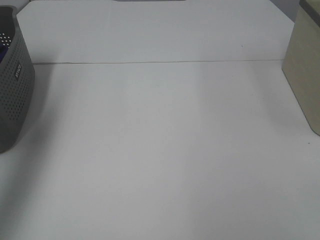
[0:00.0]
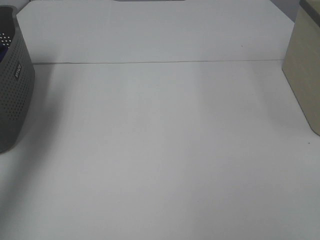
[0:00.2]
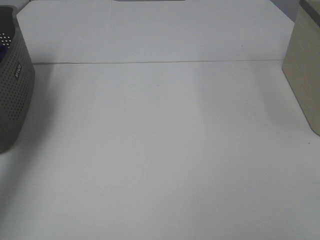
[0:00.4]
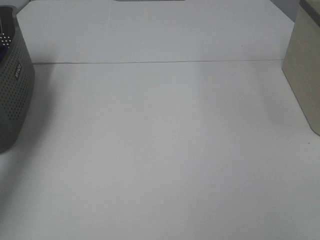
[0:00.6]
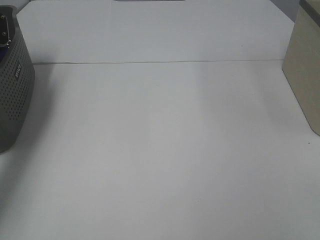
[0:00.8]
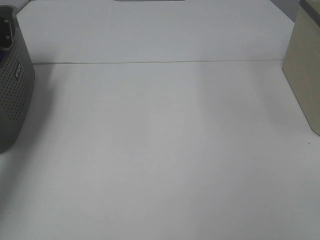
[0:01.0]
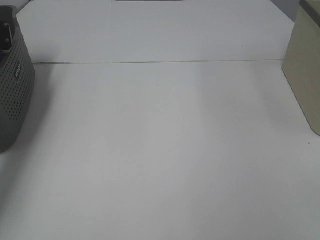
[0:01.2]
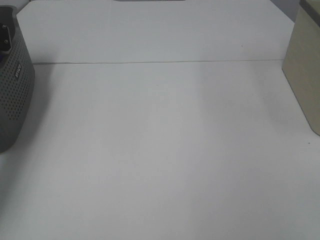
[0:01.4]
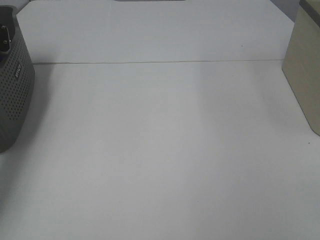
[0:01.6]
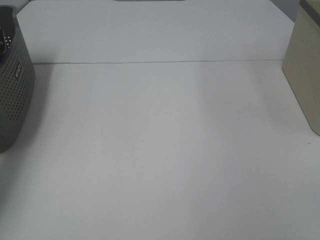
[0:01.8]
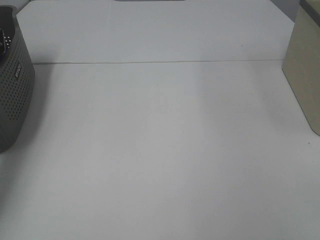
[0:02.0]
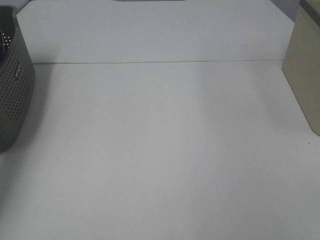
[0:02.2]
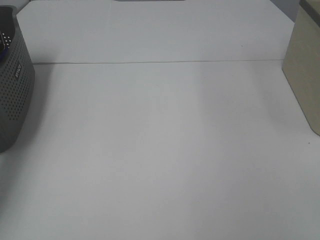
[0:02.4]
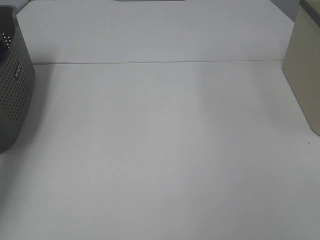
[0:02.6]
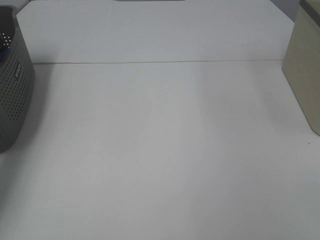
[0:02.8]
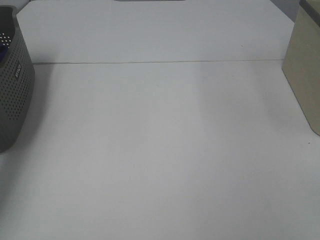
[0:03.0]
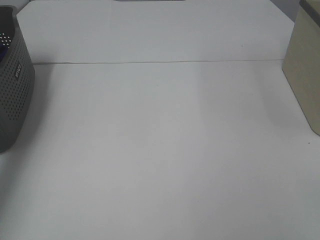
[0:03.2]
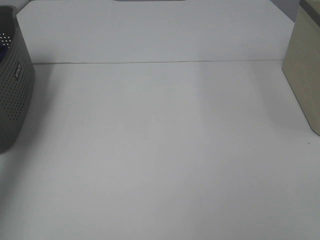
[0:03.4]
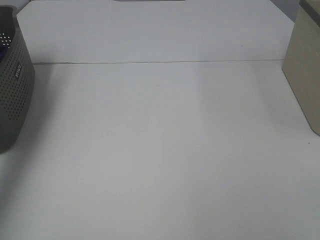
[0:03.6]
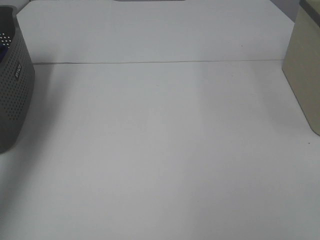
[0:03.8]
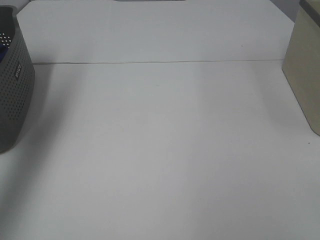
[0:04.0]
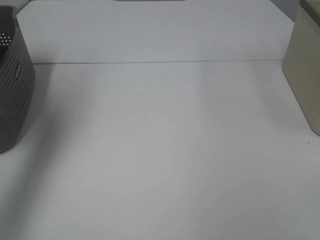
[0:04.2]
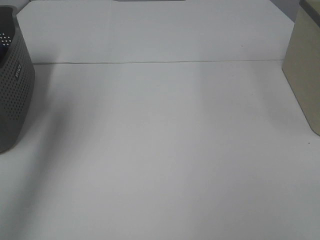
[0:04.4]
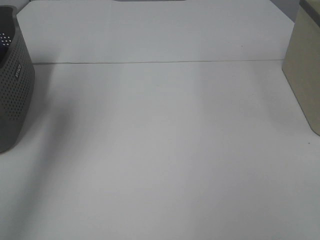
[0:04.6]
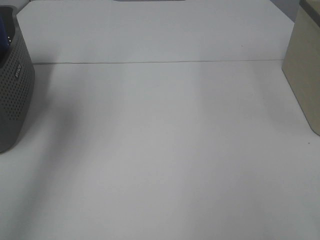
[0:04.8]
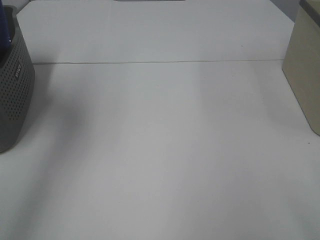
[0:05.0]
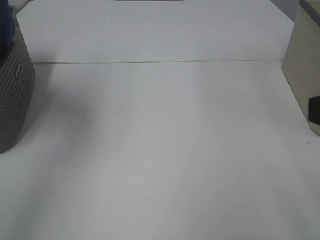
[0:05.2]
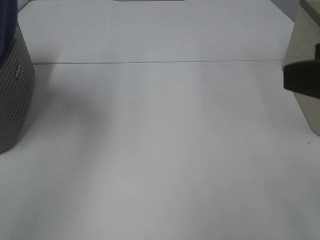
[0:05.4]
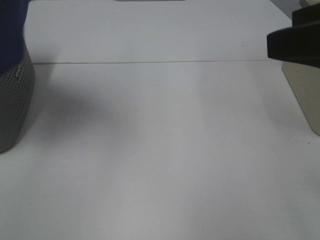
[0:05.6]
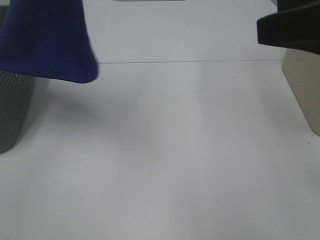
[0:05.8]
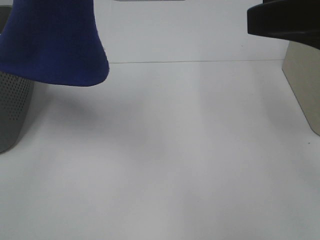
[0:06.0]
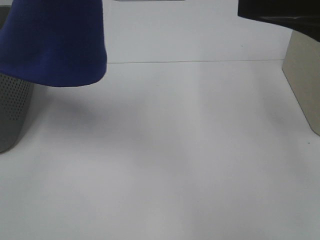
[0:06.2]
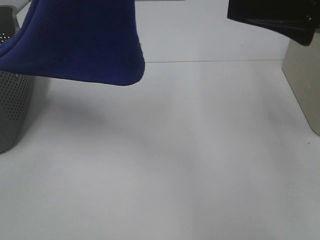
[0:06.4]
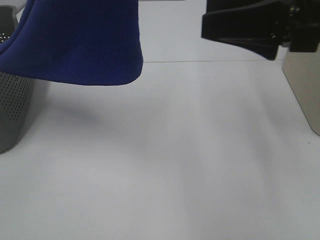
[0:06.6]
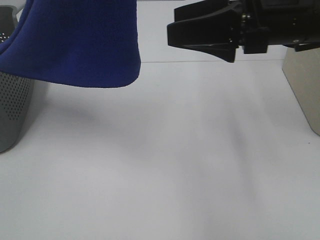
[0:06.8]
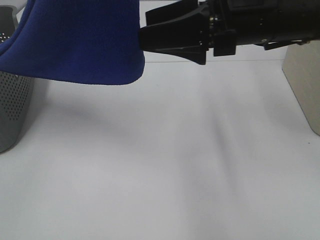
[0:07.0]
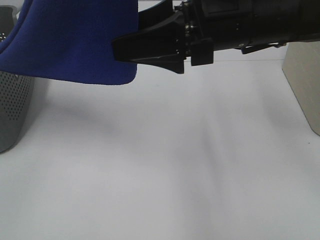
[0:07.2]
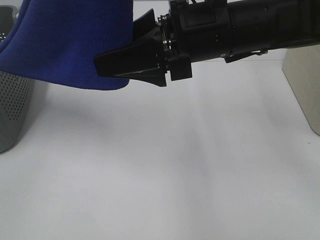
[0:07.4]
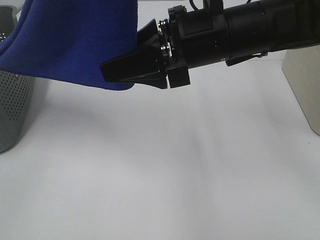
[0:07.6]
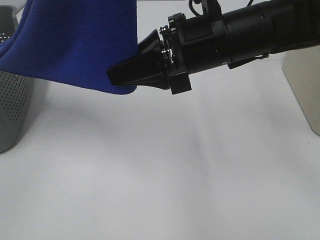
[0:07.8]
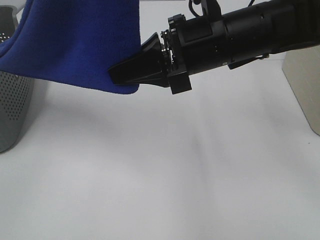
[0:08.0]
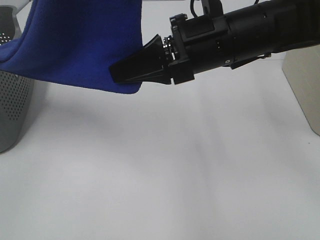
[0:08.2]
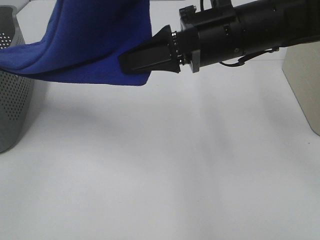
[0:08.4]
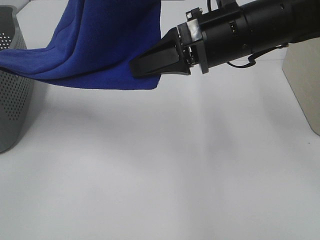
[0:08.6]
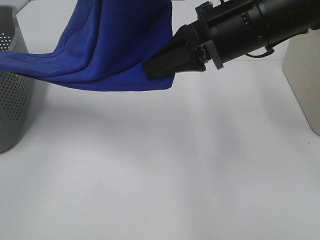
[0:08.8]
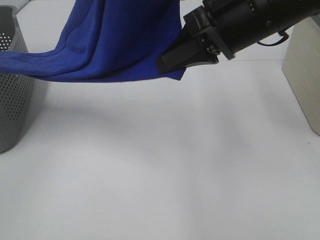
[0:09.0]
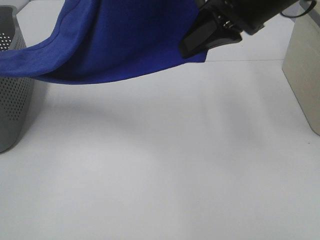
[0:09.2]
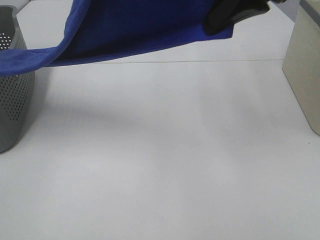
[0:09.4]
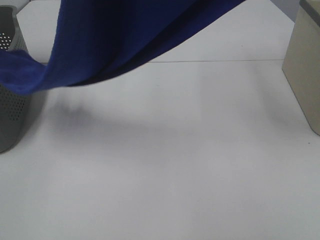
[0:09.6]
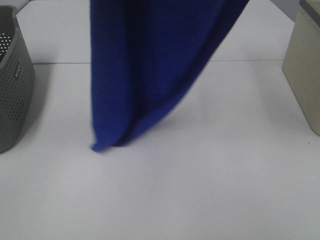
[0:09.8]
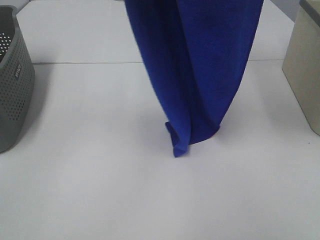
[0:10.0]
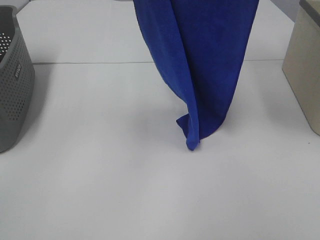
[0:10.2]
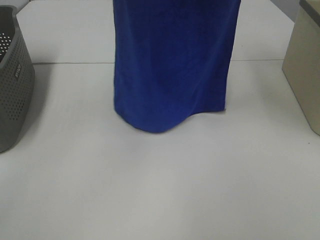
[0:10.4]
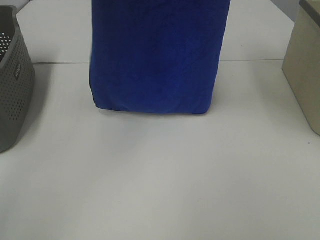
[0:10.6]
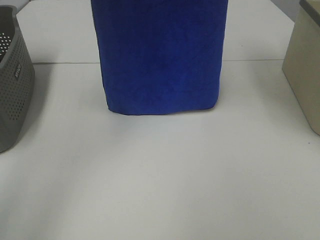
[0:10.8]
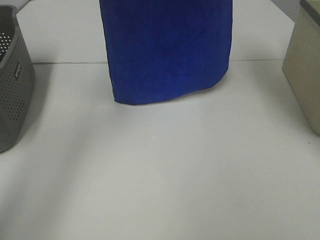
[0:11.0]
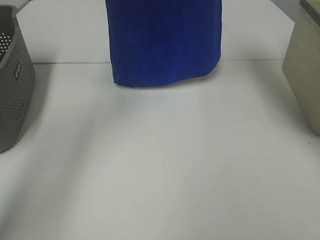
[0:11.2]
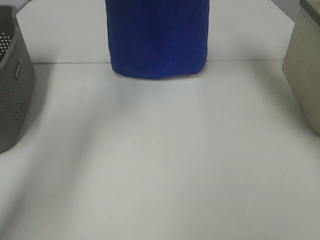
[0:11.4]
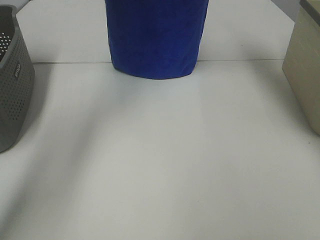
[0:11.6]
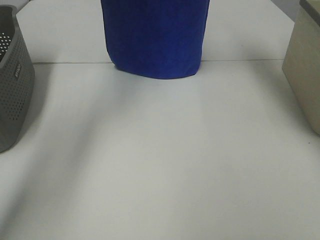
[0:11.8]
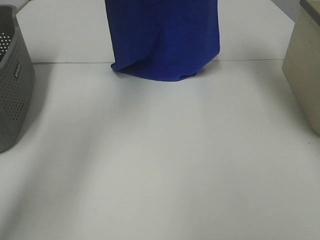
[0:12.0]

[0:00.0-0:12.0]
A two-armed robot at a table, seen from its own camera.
Task of the whole recording: Remove the towel and place it.
Step, 5.0 to 7.8 s: Right hand: grab a corner of the blue towel and straighten it.
0.0 to 1.6 s: The left gripper goes roughly 25 cm downward and forward, and closes up.
3.0 to 4.4 s: The left gripper shifts approximately 30 cm upward, backward and to the right.
4.4 to 6.0 s: The left gripper moves to the right, backward and upward, about 15 cm, while the right gripper shifts about 20 cm forward.
6.0 to 7.6 s: The right gripper heads to the left, downward and forward, covering approximately 20 cm.
7.6 to 9.0 s: The right gripper changes place by roughly 5 cm, and closes its fingers.
9.0 to 10.4 s: The left gripper moves forward, about 10 cm. The right gripper travels upward by some 20 cm.
10.4 to 12.0 s: The right gripper is displaced forward and downward by some 15 cm; the left gripper heads forward, covering about 15 cm.

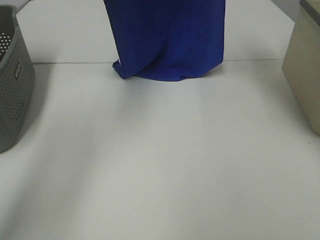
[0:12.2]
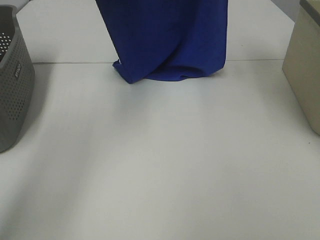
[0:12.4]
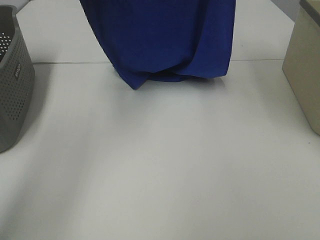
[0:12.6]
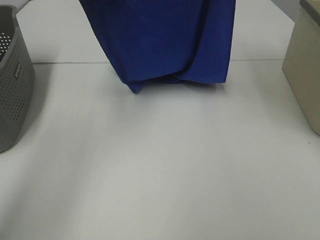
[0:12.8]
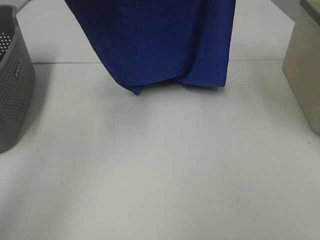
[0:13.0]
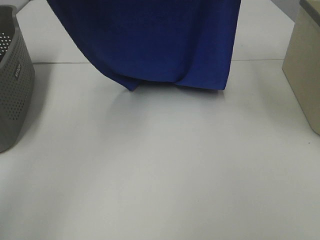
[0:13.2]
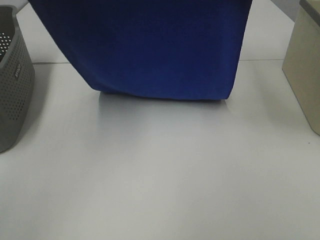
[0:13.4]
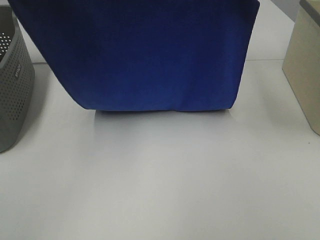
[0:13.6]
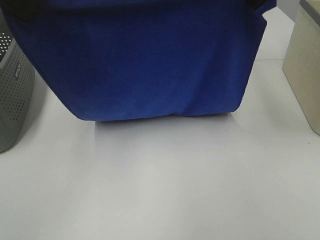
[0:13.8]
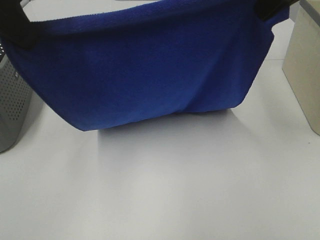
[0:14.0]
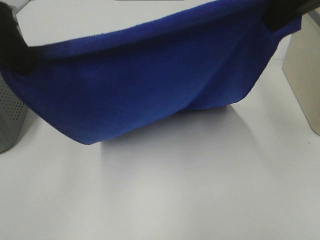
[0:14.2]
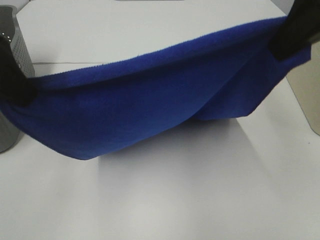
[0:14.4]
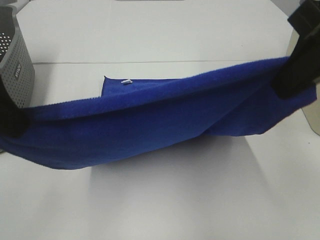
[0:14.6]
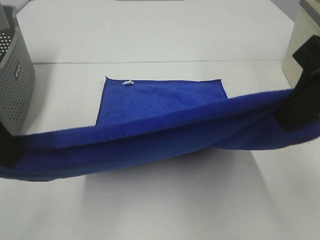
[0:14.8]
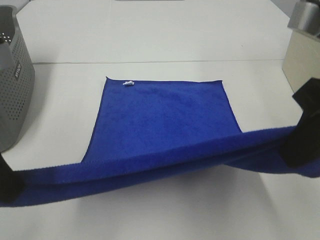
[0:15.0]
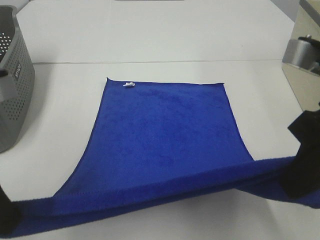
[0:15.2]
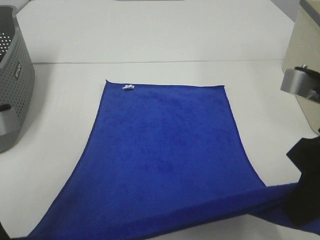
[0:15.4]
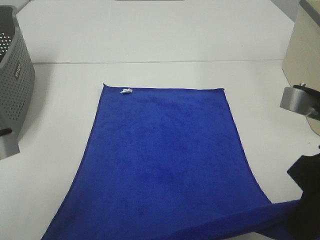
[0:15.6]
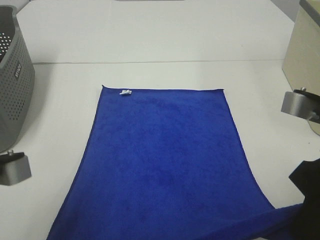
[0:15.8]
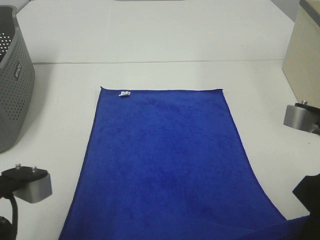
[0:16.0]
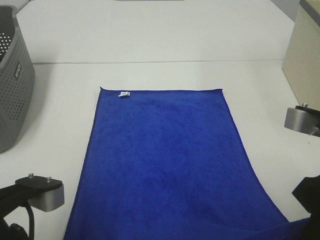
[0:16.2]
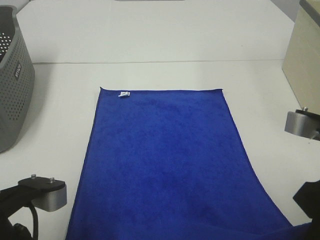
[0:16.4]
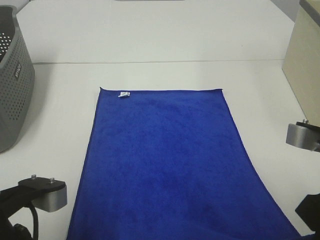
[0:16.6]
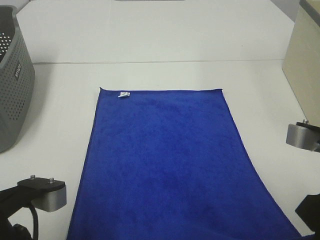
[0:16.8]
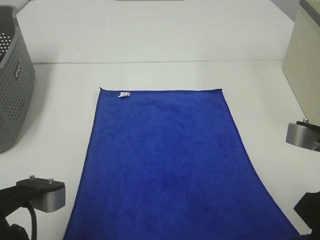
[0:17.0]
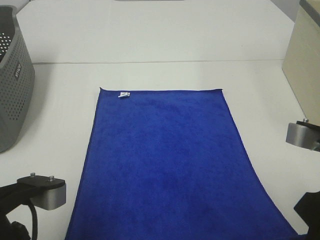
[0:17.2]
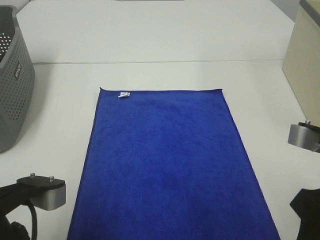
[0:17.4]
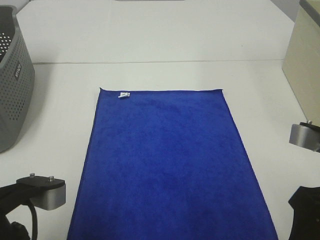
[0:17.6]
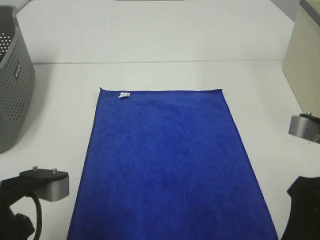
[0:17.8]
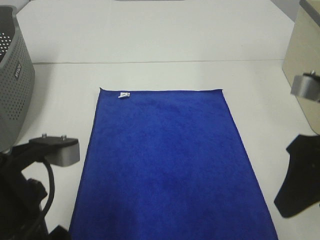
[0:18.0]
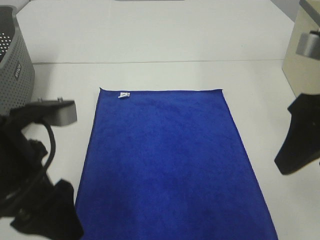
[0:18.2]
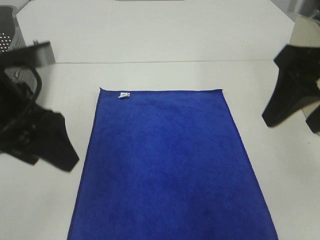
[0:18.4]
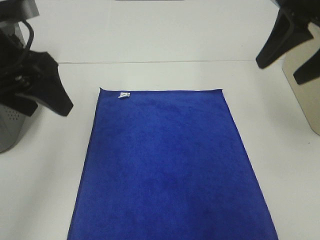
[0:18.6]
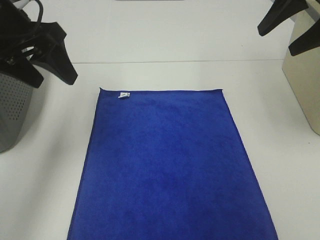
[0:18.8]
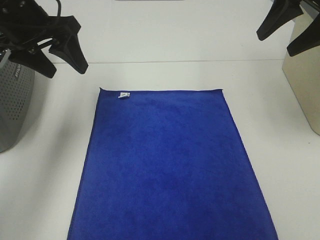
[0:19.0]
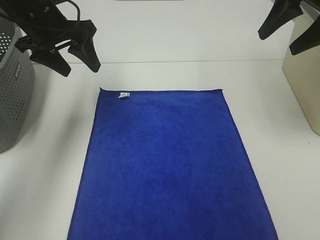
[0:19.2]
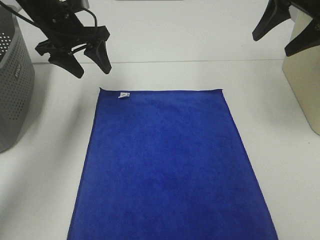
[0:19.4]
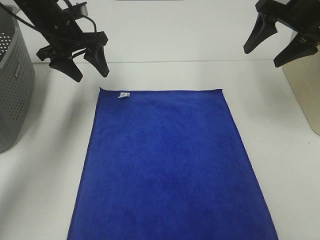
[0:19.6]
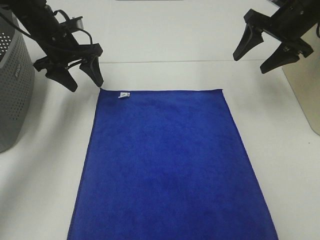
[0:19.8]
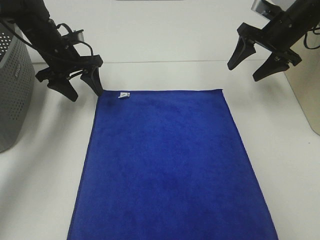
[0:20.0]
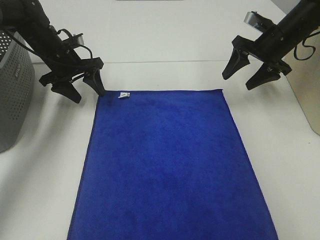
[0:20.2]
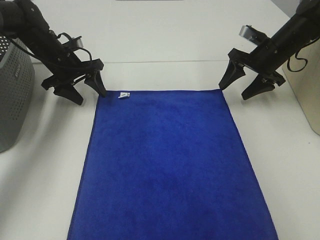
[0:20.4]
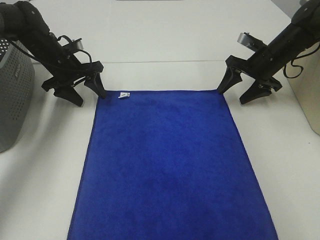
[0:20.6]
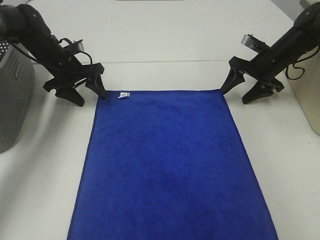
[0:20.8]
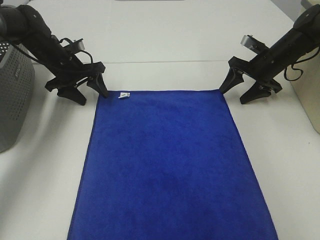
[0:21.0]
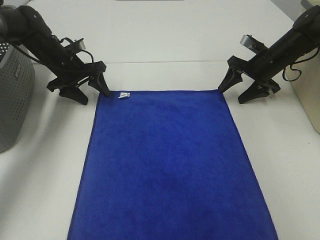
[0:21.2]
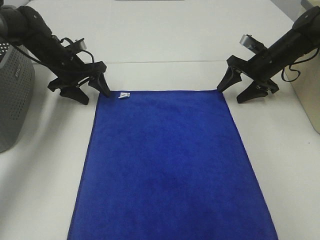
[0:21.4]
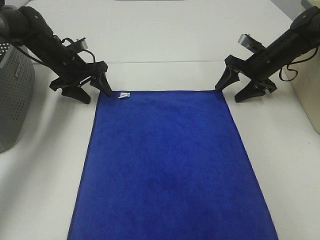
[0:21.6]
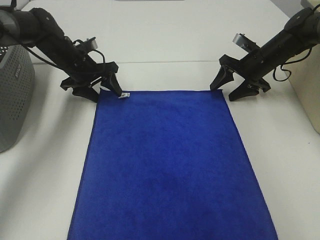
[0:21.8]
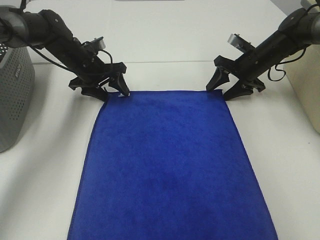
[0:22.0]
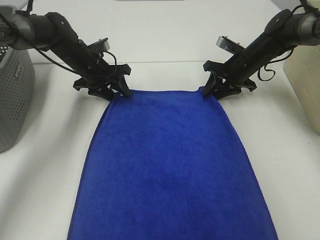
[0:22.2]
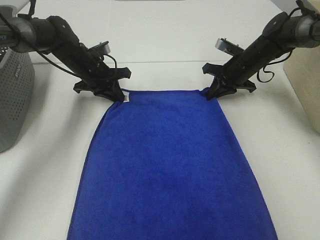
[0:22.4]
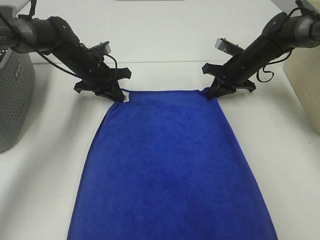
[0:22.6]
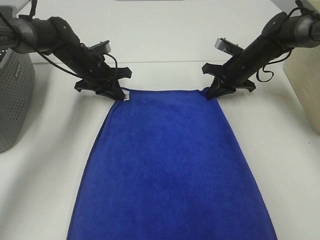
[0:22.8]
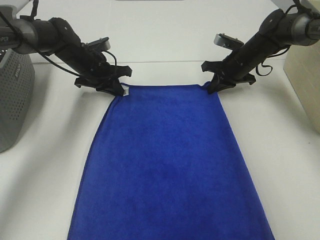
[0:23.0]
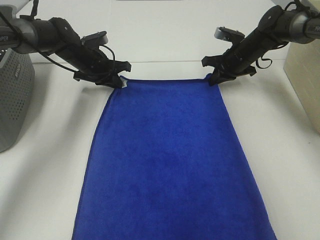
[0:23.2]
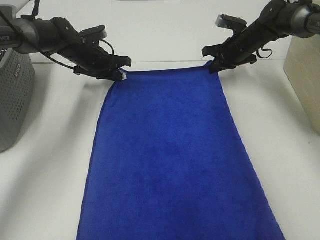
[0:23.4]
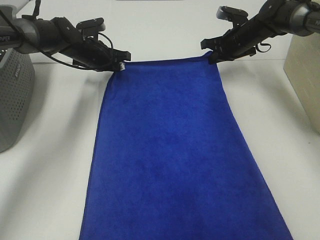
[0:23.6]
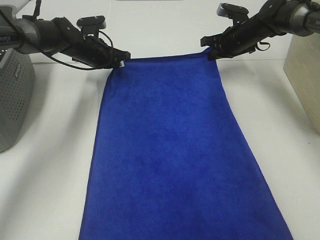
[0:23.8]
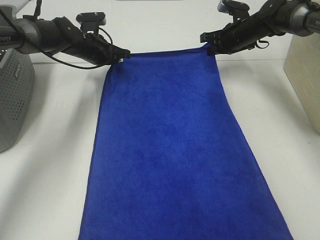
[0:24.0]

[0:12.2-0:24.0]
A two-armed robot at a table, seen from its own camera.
Task of the whole recording: Remove the towel and place it.
Step, 13.4 to 20.6 s: Left hand:adjust the blue towel.
Step, 13.4 to 20.6 s: Right hand:adjust the blue towel.
12.2 to 13.6 s: The grippers both shift backward by approximately 15 cm.
13.6 to 15.2 s: The left gripper goes approximately 20 cm downward and backward, while the right gripper shifts about 20 cm backward and downward.
15.2 to 16.6 s: The right gripper is displaced downward by roughly 5 cm; the left gripper travels downward by some 10 cm.
16.6 to 18.2 s: The left gripper moves forward and upward, about 10 cm, and opens up. The right gripper goes some 10 cm upward and forward, and opens its fingers.
18.2 to 19.6 s: The two grippers go roughly 25 cm forward.
19.6 to 21.0 s: The right gripper heads downward and forward, covering some 20 cm, while the left gripper moves downward, approximately 10 cm.
21.0 to 22.6 s: The right gripper shifts approximately 5 cm to the left, and closes its fingers, while the left gripper moves to the right, about 5 cm, and closes its fingers.
22.6 to 24.0 s: The left gripper changes place by roughly 5 cm; the right gripper heads forward and upward, covering some 10 cm.
